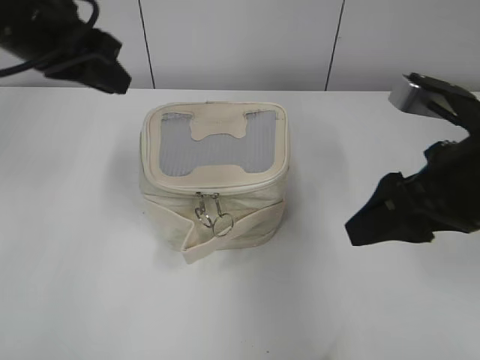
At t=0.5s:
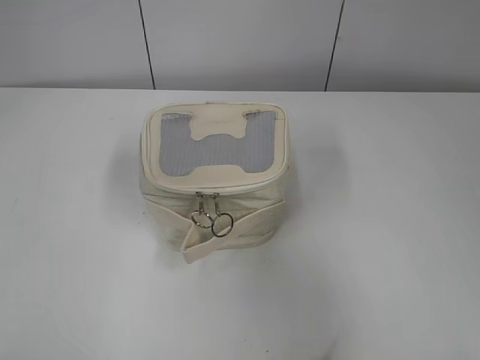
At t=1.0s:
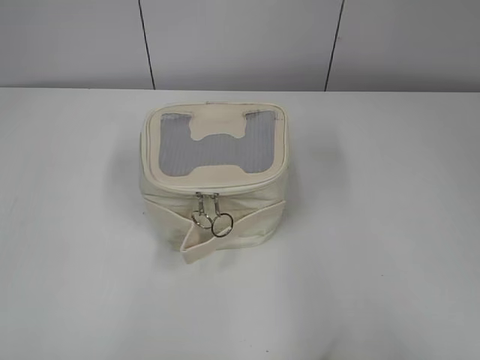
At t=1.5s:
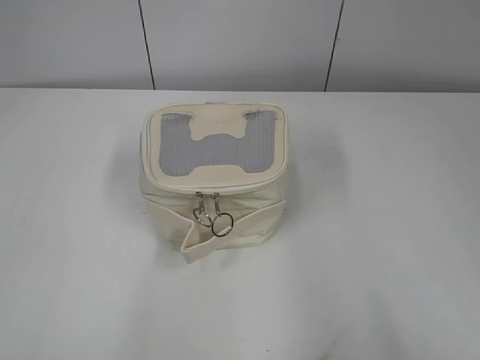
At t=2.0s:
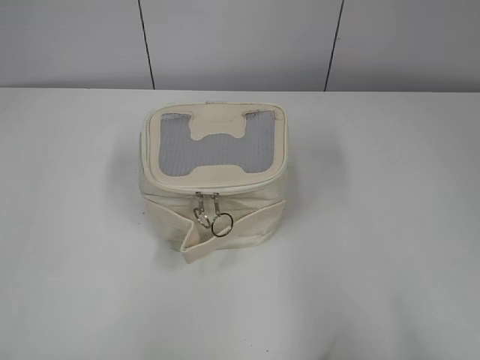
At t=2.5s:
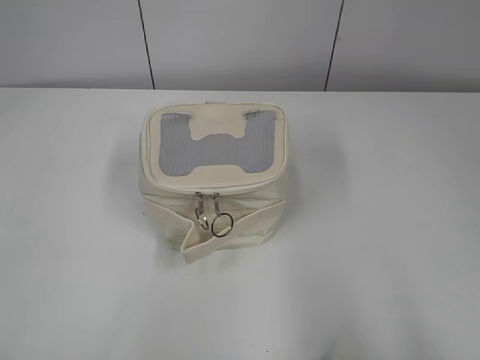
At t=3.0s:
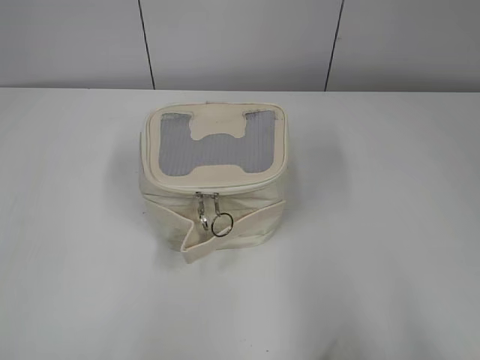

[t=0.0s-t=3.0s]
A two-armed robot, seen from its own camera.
t=0.0s to t=1.5s: The left gripper shifts about 35 cm backward and to the left, and opens its fingers. The right gripper travels backward and to the right by roughly 25 cm.
